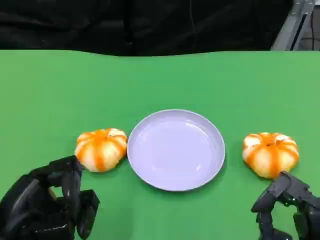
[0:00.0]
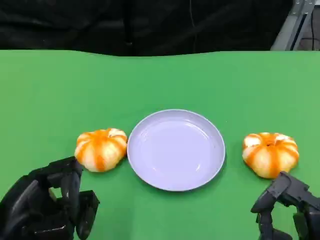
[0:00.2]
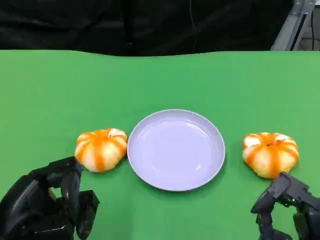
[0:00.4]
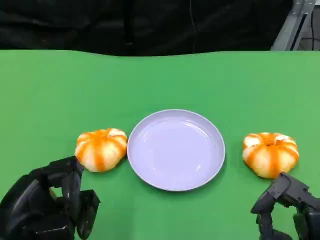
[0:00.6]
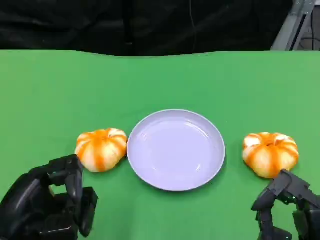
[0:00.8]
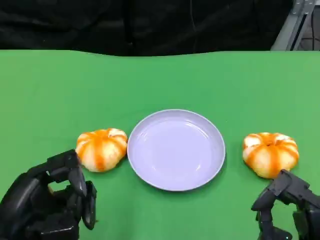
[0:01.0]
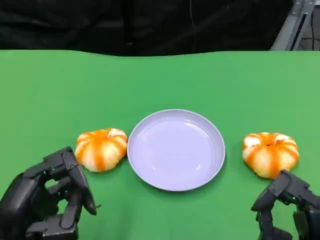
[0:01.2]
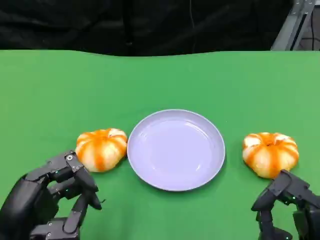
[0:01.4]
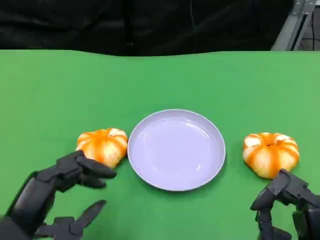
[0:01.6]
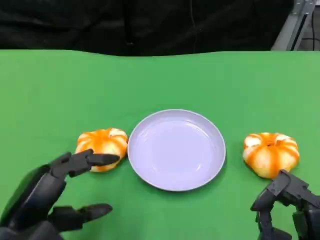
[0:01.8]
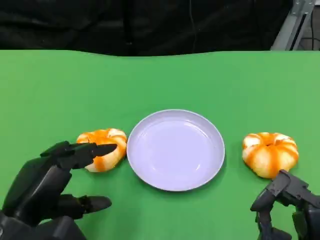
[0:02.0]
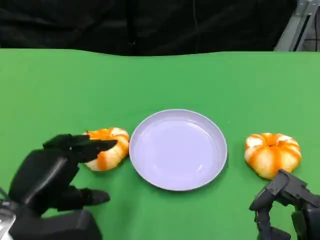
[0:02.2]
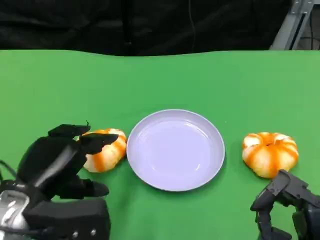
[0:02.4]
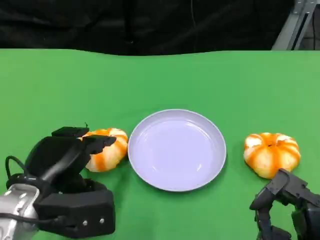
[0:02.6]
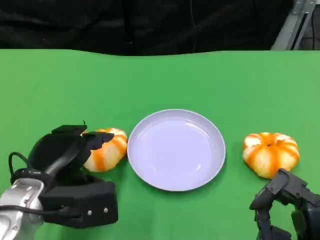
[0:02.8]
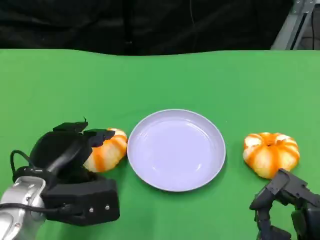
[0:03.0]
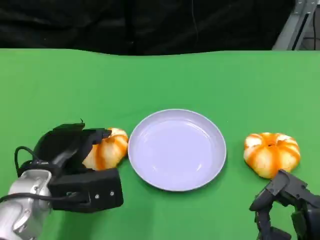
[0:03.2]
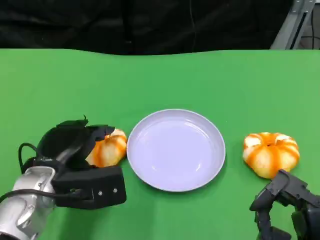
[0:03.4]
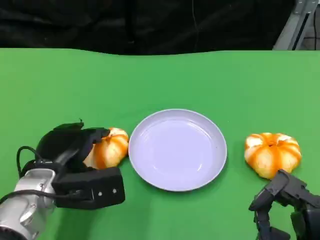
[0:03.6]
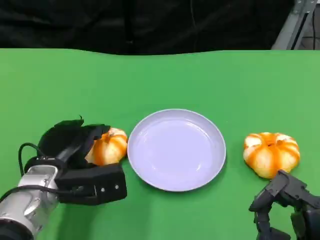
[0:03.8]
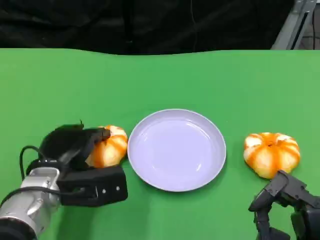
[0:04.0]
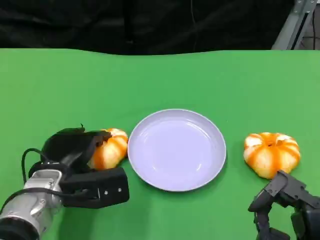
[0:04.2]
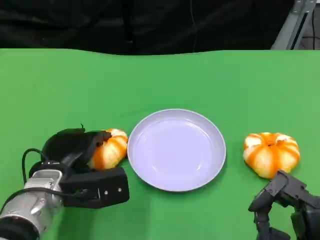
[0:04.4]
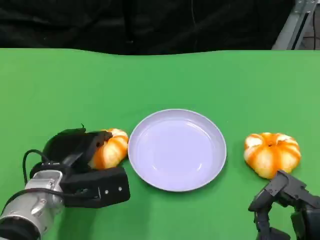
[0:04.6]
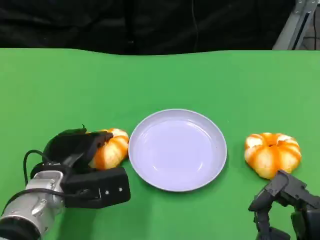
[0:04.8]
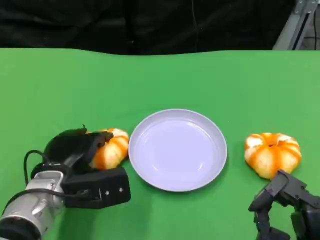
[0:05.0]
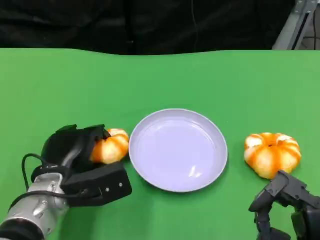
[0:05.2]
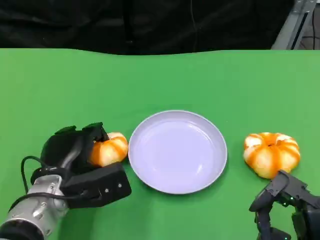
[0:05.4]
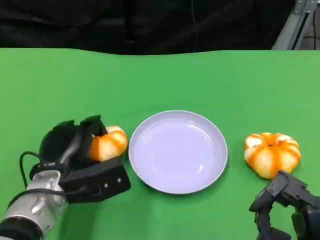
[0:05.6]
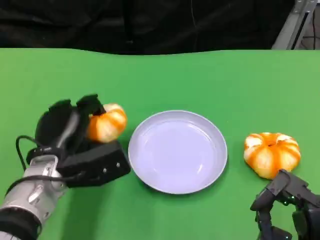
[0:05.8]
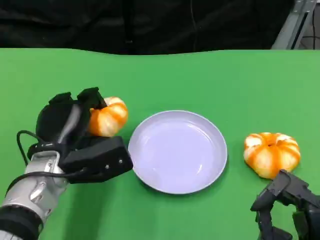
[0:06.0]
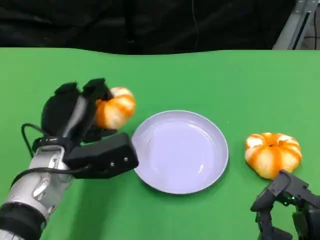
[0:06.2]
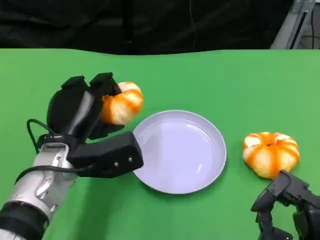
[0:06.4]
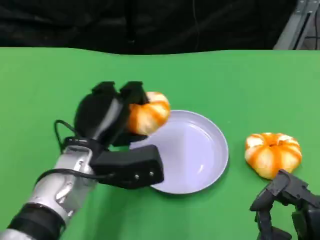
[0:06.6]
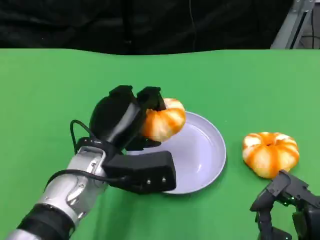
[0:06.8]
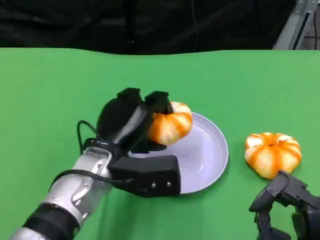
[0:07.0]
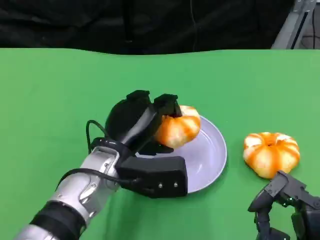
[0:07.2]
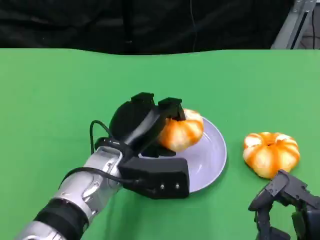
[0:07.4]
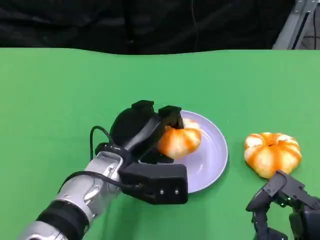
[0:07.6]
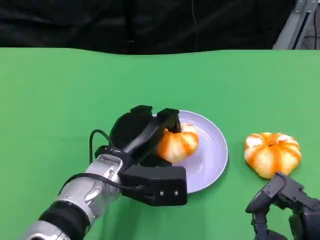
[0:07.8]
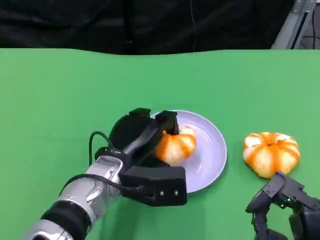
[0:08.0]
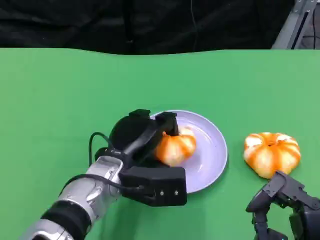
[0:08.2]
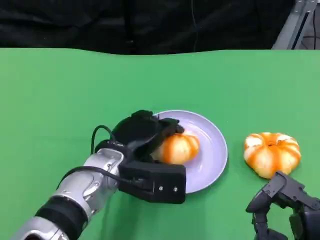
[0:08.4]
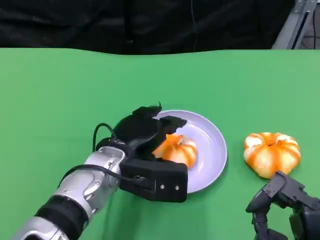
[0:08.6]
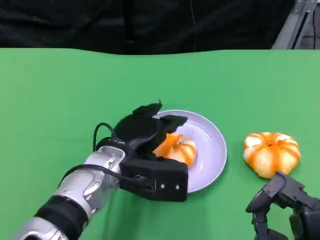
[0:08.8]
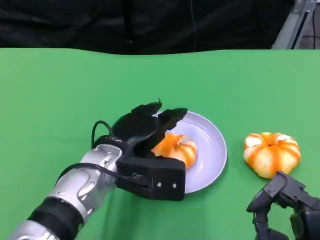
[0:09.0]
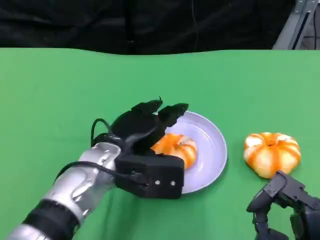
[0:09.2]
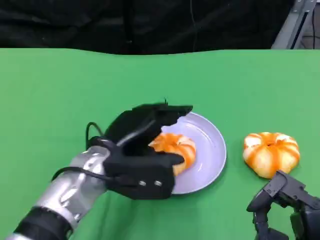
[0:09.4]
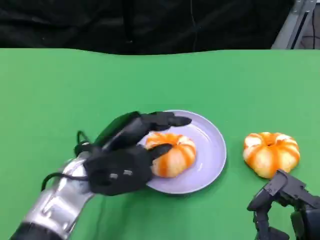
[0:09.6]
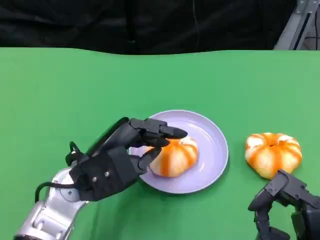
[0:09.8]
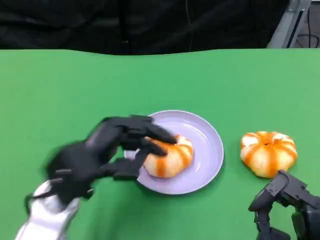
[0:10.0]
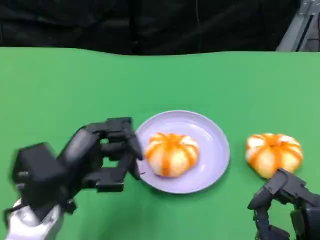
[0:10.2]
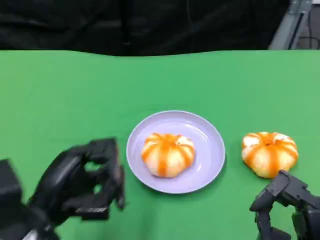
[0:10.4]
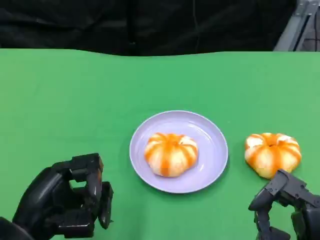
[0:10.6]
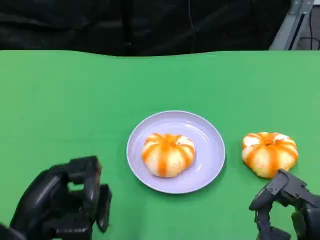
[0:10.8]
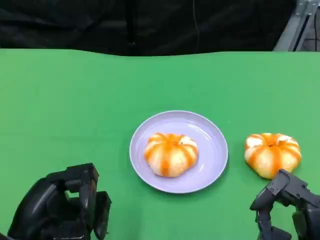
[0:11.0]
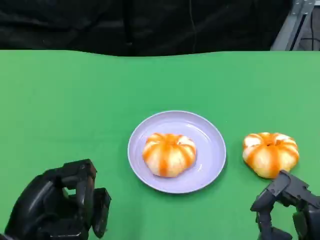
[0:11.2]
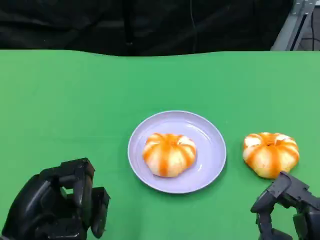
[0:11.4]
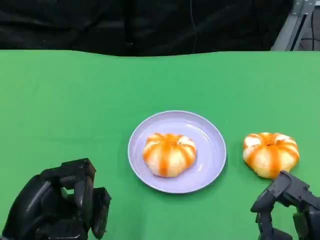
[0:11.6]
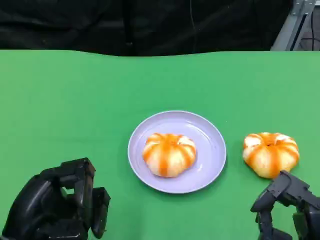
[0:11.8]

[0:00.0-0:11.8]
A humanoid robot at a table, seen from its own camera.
Task of the whole recording: Grasp the bread from the table and place it into the plate.
0:01.4 to 0:03.0: The left hand travels forward by some 10 cm.
0:03.0 to 0:04.4: The left hand shifts by approximately 5 cm.
0:06.0 to 0:07.4: The left hand is displaced to the right by approximately 10 cm.
0:07.4 to 0:08.8: The hands move only a little.
0:08.8 to 0:10.4: The left hand shifts roughly 15 cm to the left and backward.
0:10.4 to 0:11.8: The hands make only small movements.

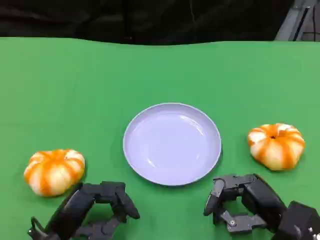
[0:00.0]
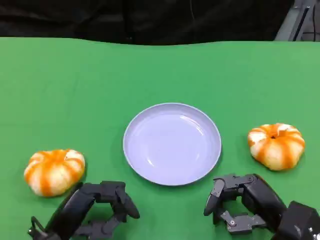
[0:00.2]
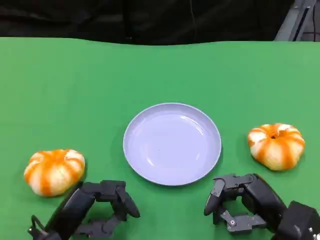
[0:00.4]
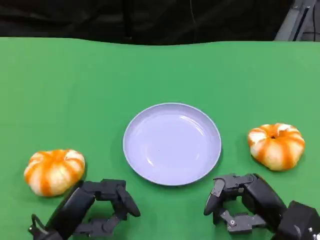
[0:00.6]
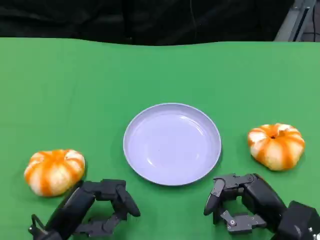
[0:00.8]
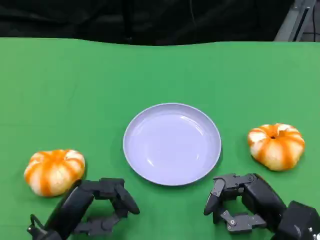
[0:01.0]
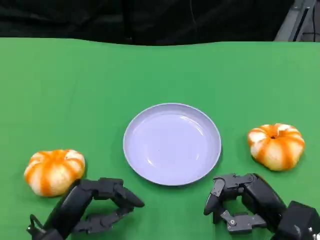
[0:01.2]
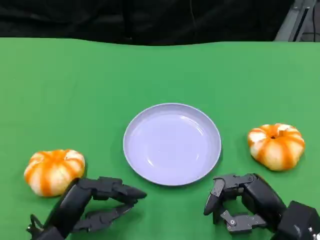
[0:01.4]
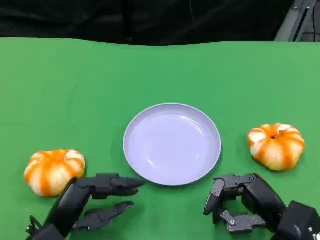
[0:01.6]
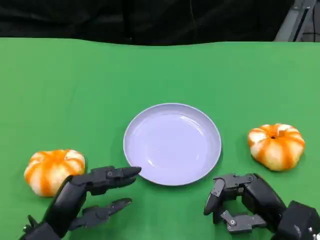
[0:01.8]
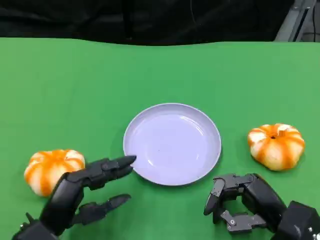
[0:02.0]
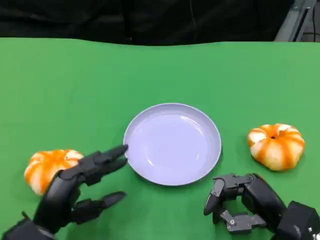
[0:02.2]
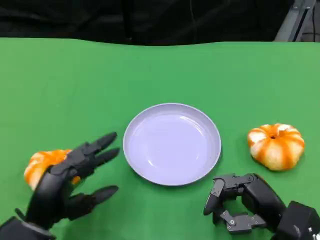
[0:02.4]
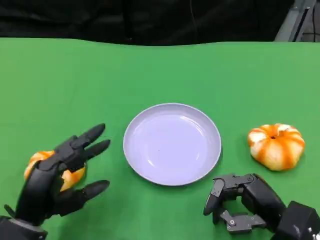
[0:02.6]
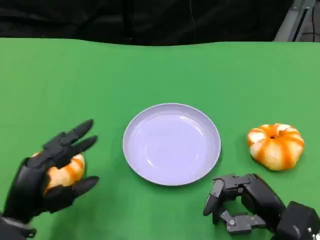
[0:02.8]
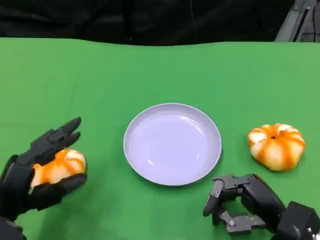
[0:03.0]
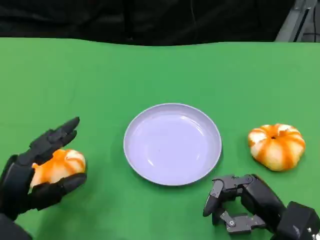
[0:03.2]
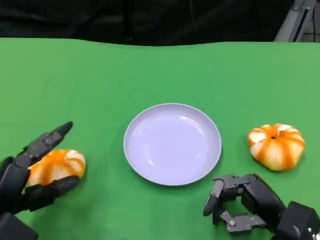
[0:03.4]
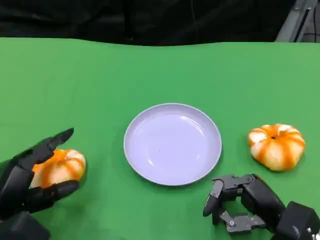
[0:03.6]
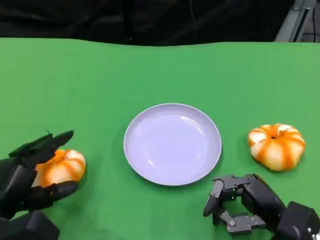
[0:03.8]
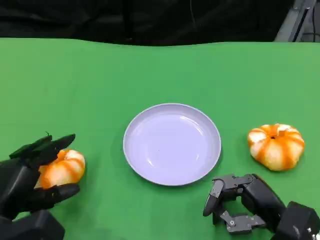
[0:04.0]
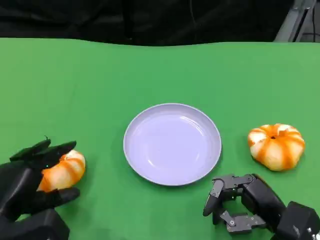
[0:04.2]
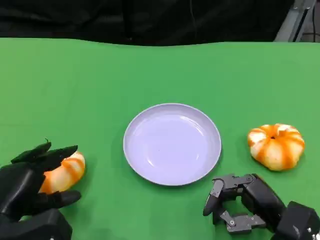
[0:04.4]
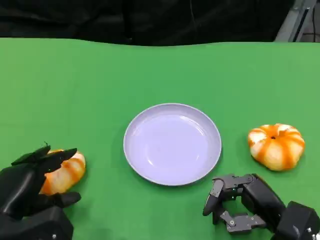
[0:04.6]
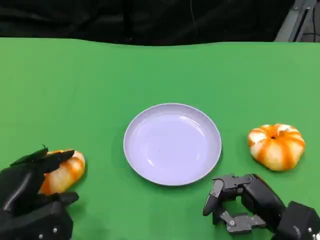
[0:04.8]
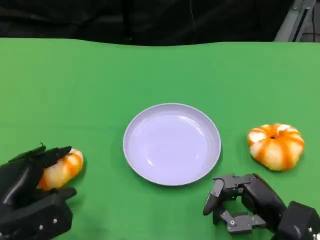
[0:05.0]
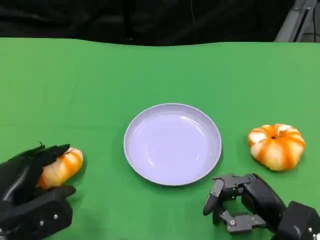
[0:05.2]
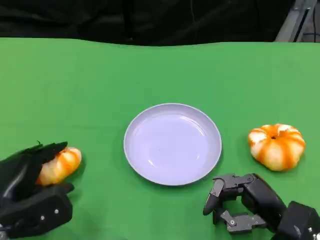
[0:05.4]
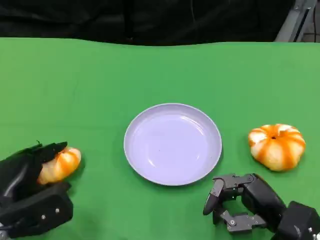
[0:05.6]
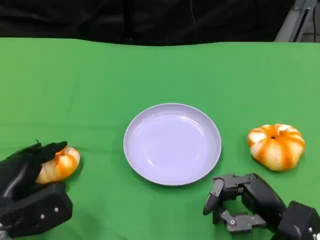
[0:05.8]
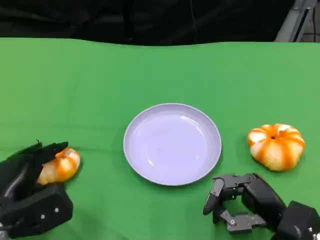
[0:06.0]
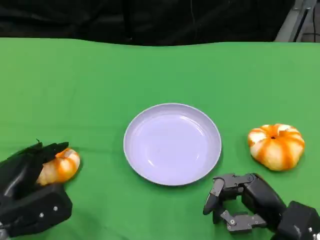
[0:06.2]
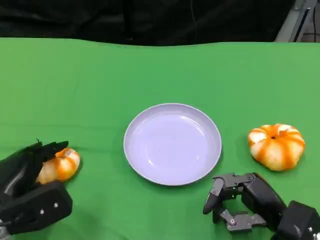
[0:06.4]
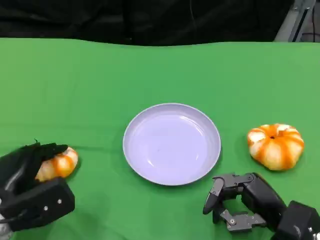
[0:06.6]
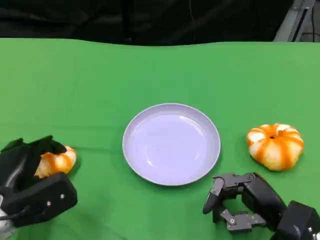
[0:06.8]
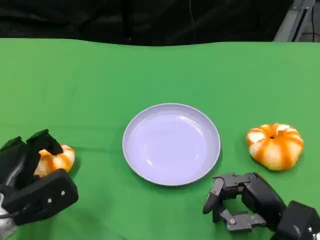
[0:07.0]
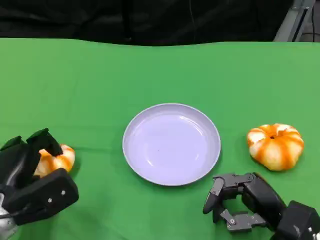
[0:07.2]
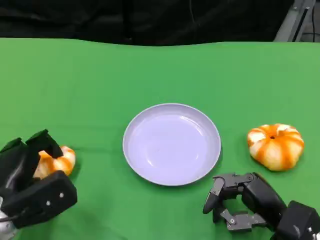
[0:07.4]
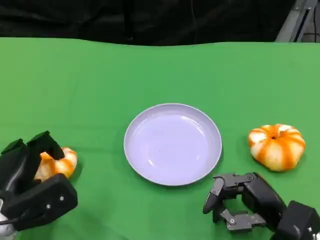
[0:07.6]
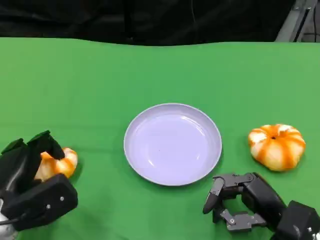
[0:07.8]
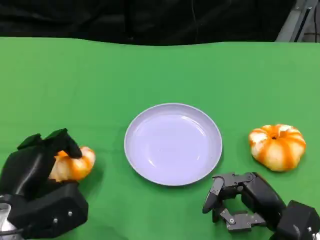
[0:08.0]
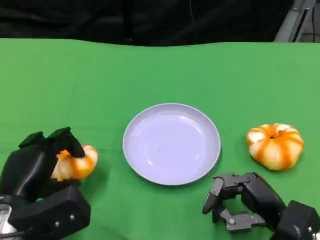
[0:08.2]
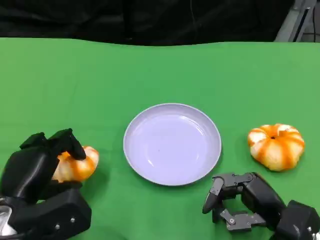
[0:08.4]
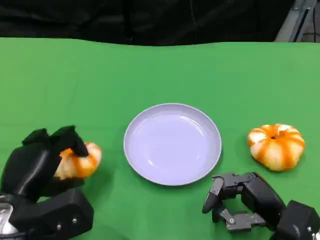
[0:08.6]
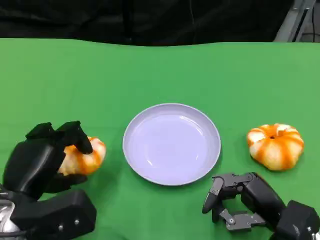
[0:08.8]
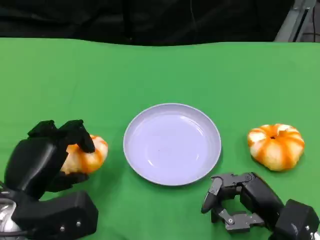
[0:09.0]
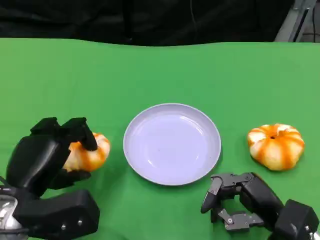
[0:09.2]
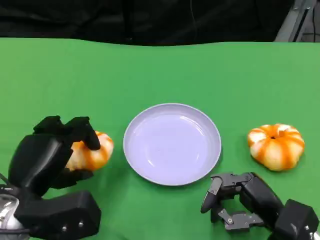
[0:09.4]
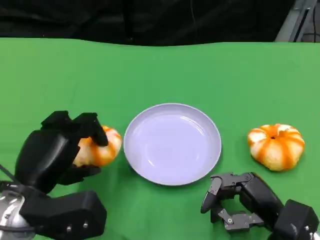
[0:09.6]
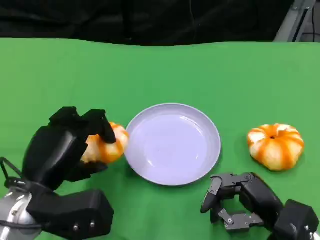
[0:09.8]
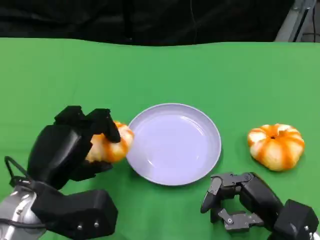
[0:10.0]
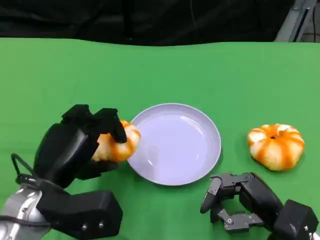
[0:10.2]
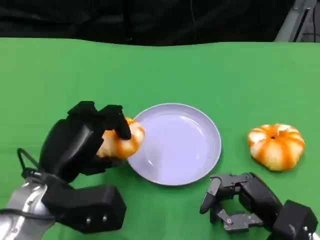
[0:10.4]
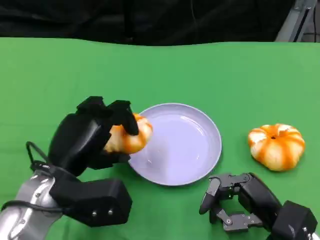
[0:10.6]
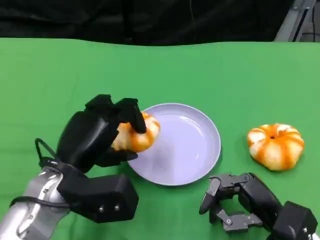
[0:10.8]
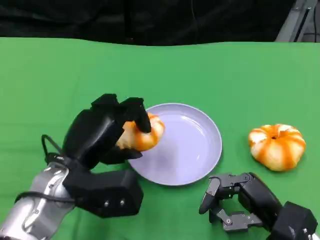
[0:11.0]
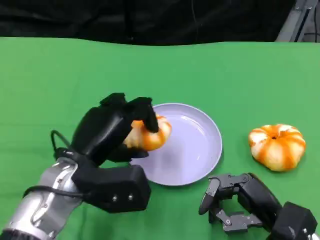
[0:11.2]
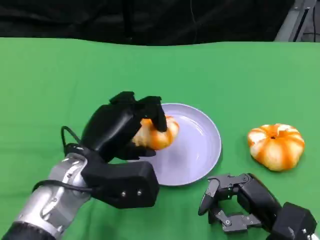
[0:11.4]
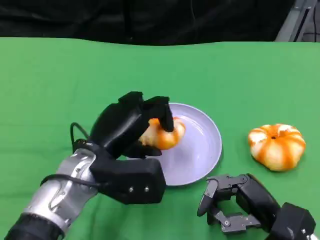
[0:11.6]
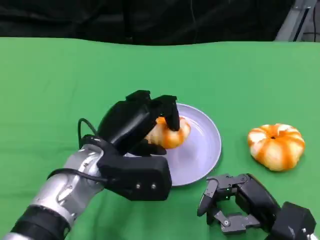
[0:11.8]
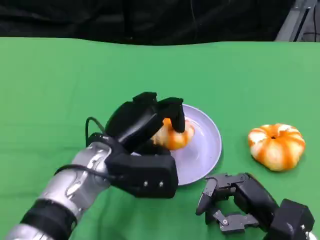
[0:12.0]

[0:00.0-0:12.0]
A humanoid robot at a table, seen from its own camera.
Task of the whole recording: Grasp the bread from the table and place it into the plate.
0:00.0 to 0:01.6: The hands stay close to where they were, moving slightly.
0:01.6 to 0:03.0: The left hand travels to the left by roughly 5 cm.
0:04.4 to 0:07.6: The hands move only a little.
0:07.6 to 0:09.0: The left hand heads upward, covering about 5 cm.
0:09.0 to 0:10.4: The hands stay close to where they were, moving slightly.
0:10.4 to 0:12.0: The left hand shifts about 10 cm to the right.
